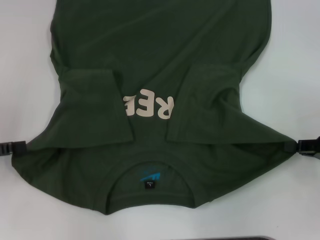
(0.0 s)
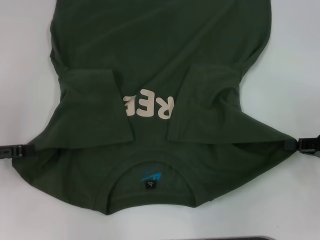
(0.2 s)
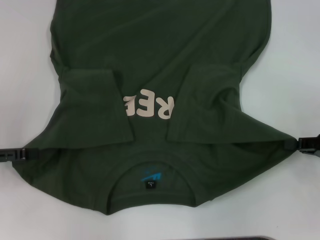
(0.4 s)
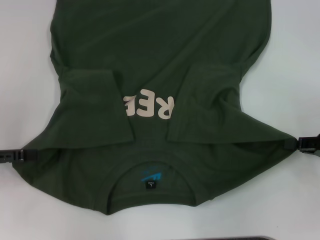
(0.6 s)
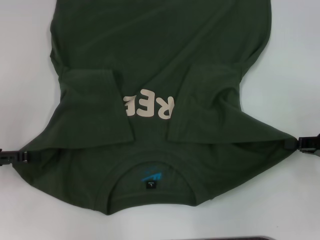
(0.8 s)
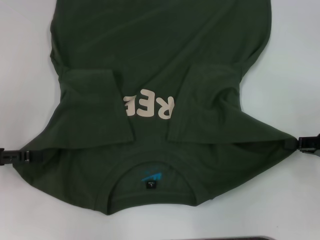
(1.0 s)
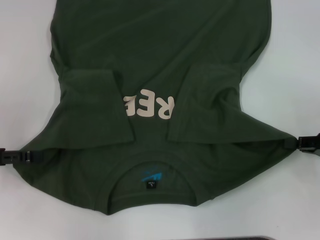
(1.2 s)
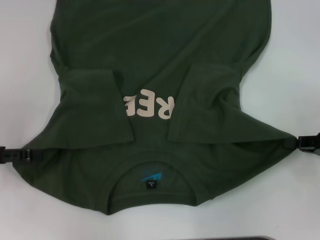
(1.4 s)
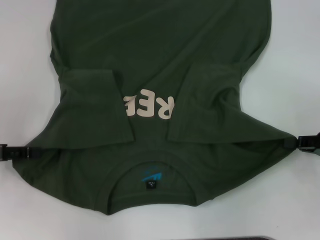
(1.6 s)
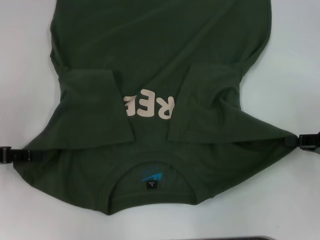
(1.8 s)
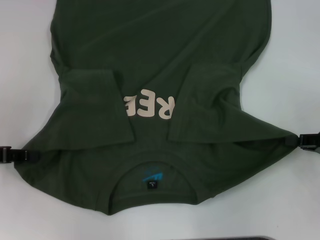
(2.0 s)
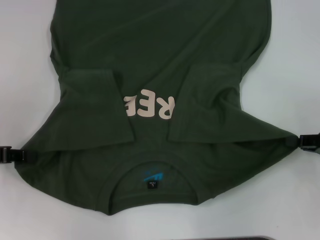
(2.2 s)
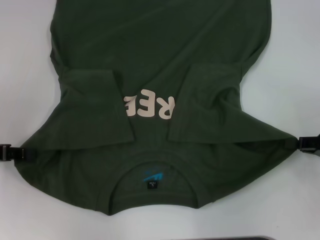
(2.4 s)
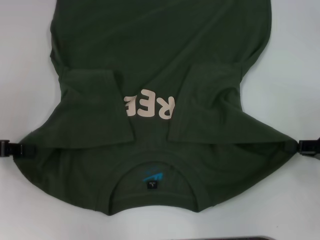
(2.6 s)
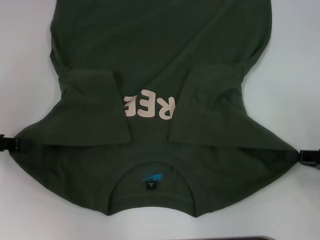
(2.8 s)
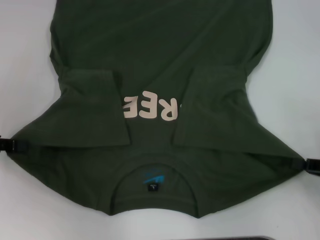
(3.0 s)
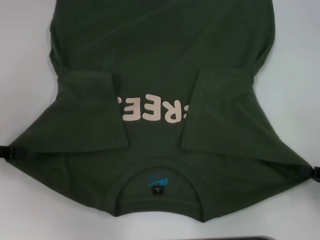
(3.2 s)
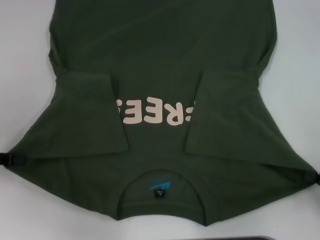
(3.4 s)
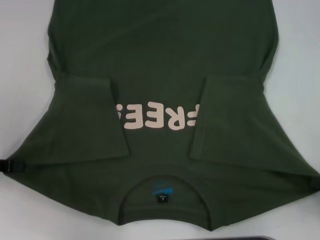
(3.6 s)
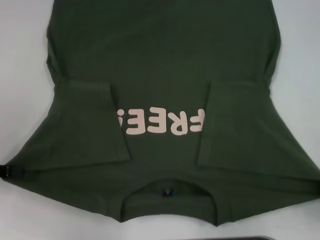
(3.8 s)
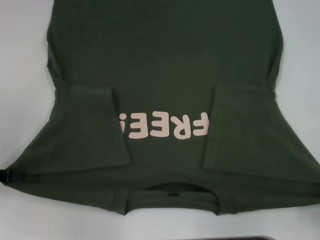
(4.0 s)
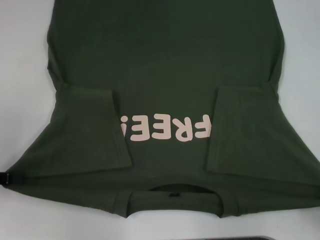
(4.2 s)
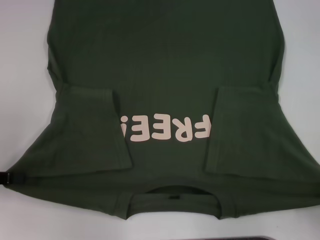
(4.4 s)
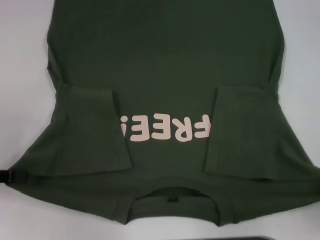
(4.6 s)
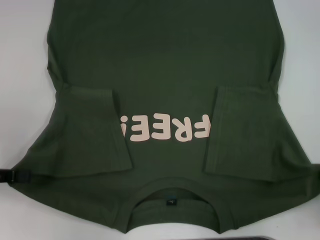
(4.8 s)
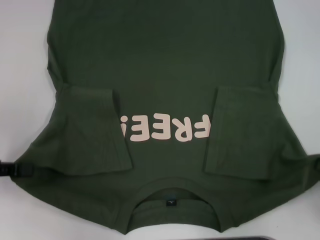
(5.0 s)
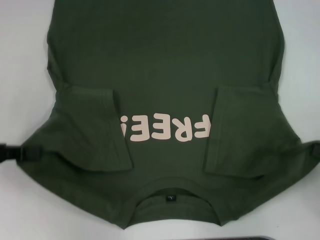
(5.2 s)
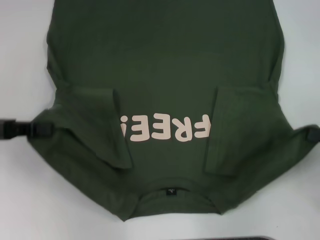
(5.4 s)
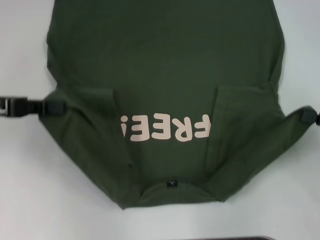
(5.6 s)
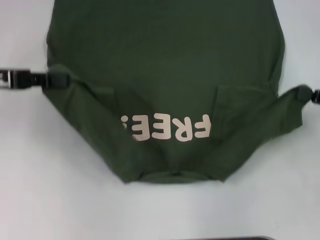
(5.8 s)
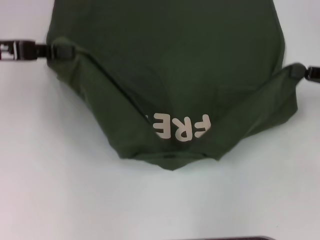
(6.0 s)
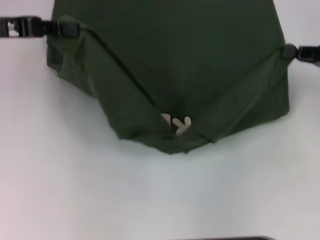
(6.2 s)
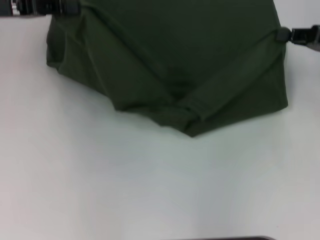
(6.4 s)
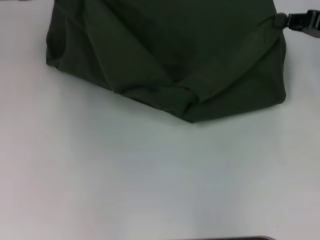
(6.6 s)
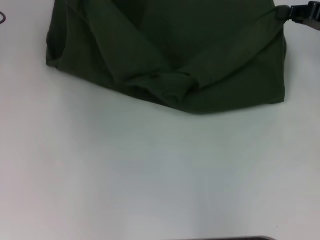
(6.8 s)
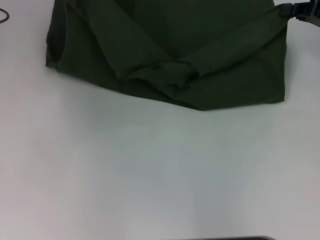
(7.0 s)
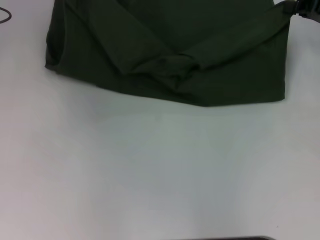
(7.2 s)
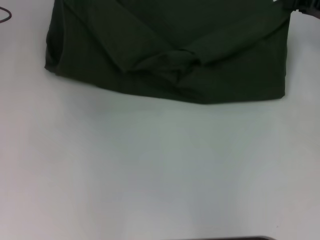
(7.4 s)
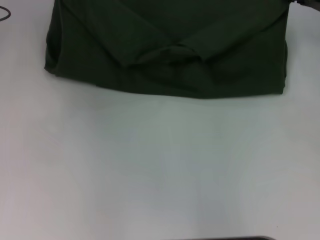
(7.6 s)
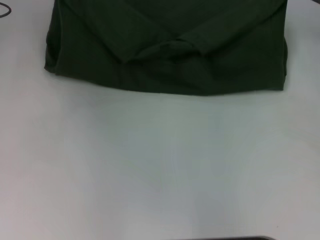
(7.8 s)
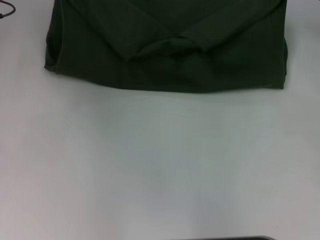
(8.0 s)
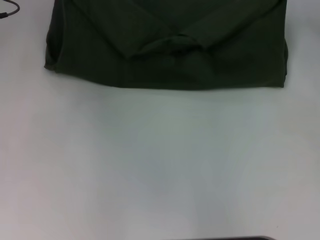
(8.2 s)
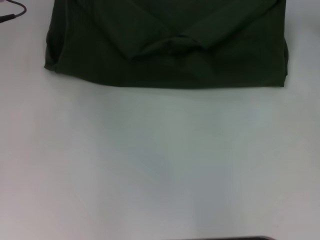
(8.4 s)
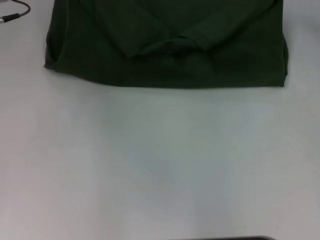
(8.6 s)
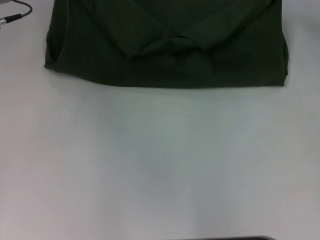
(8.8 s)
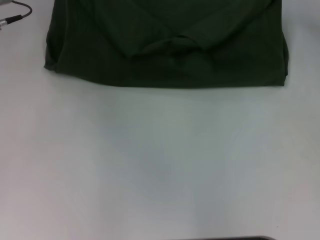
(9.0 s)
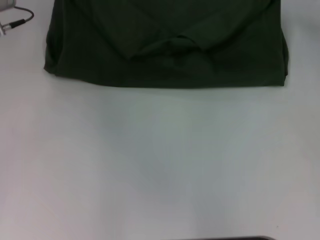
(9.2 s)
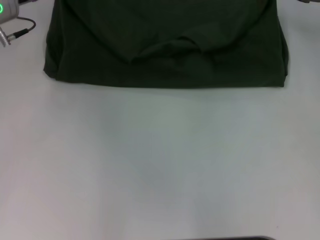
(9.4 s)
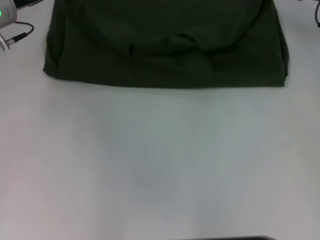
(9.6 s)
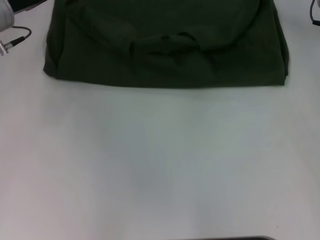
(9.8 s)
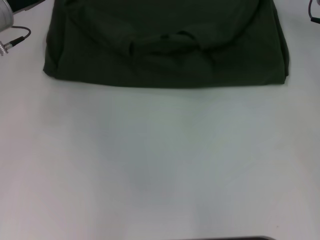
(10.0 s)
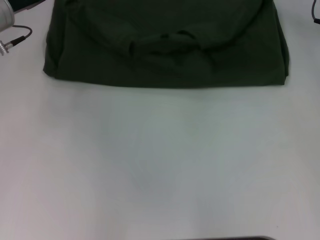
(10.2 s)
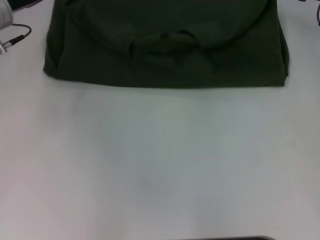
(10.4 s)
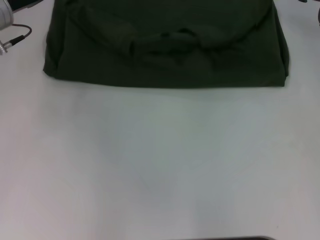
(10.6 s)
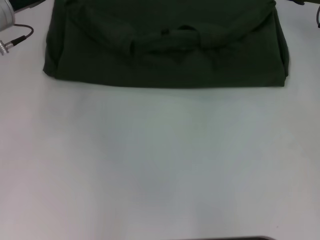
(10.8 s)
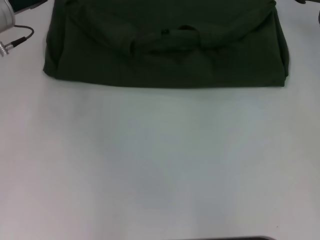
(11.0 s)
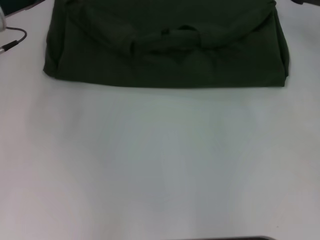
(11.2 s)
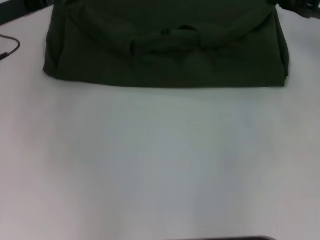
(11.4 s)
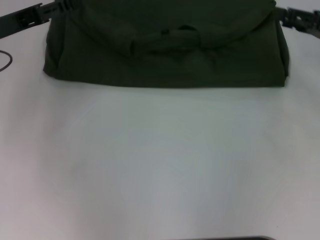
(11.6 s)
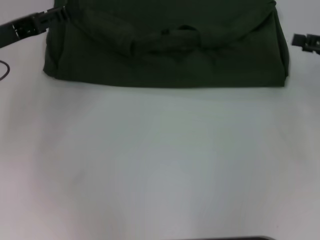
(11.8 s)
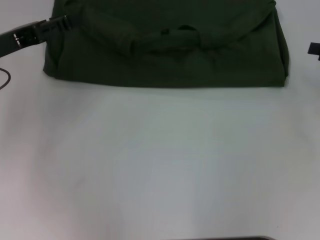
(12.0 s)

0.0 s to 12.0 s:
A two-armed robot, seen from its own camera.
Step, 0.0 to 2.2 s: Grab the bottom left corner with your left hand.
Step, 2.4 to 10.6 s: Fold the clothes with your left hand.
Step, 2.4 to 10.6 s: Fold the clothes with your right hand.
0.0 to 1.6 s: The grippers make only small movements.
1.6 to 3.0 s: The right gripper moves backward, about 5 cm; the left gripper closes its fingers.
3.0 to 4.4 s: The right gripper travels backward by some 10 cm.
4.4 to 6.0 s: The right gripper heads forward and upward, covering some 20 cm, while the left gripper heads forward, upward and to the right, covering some 15 cm.
6.0 to 7.6 s: Both grippers move forward, approximately 10 cm.
7.6 to 9.0 s: The grippers make only small movements.
9.0 to 10.4 s: The left gripper opens up.
10.4 to 12.0 s: The left gripper is displaced backward by some 10 cm. Meanwhile the right gripper moves backward and to the right, about 15 cm.

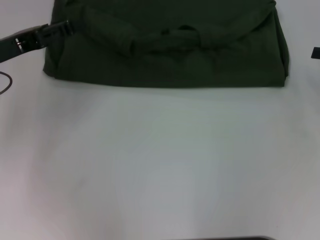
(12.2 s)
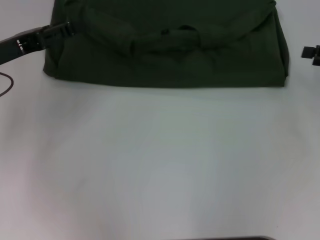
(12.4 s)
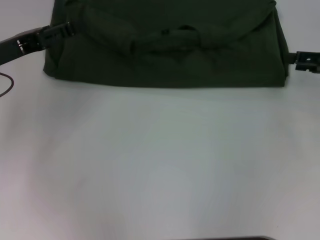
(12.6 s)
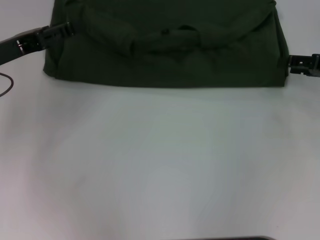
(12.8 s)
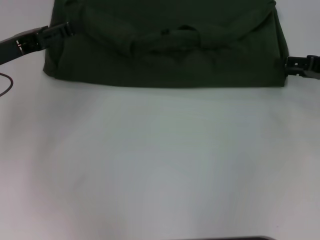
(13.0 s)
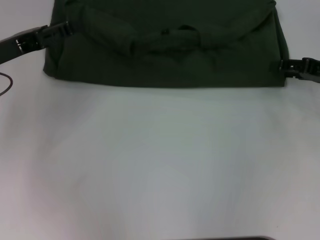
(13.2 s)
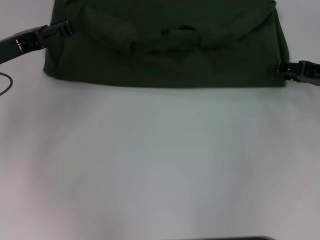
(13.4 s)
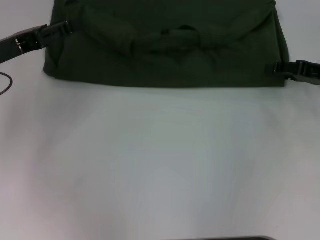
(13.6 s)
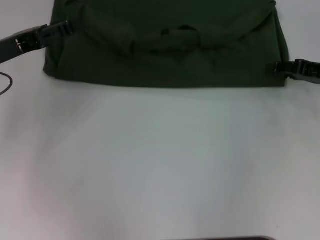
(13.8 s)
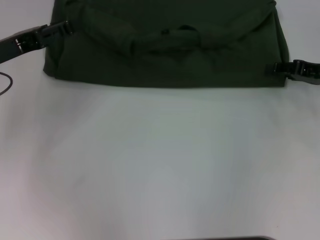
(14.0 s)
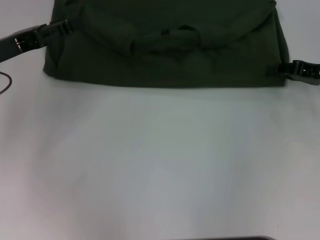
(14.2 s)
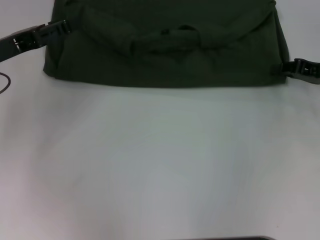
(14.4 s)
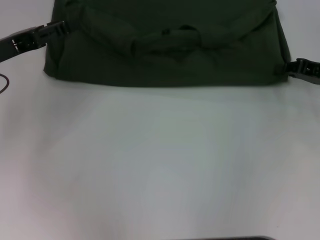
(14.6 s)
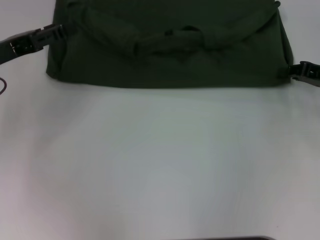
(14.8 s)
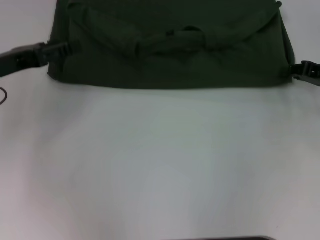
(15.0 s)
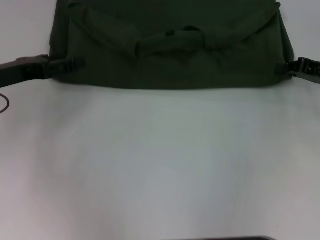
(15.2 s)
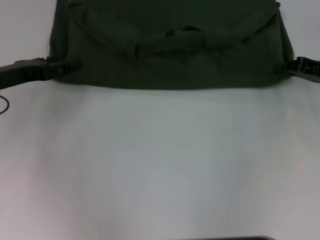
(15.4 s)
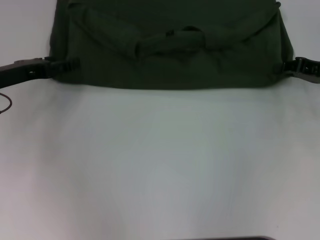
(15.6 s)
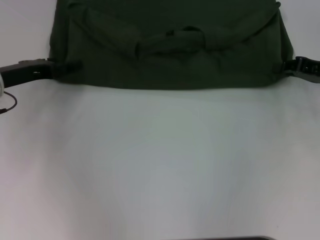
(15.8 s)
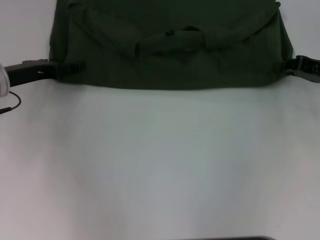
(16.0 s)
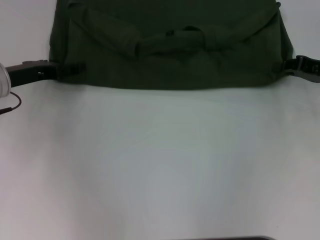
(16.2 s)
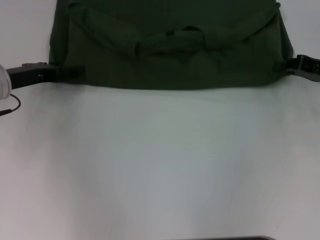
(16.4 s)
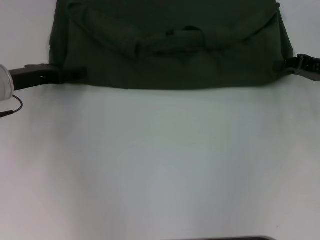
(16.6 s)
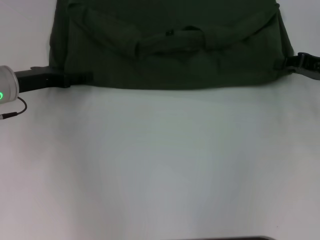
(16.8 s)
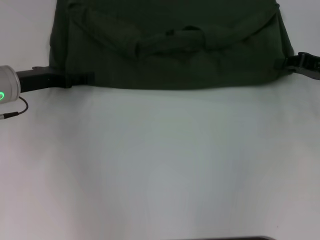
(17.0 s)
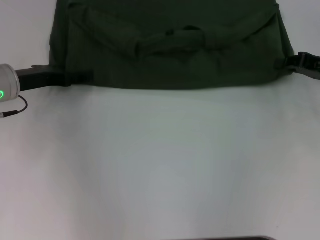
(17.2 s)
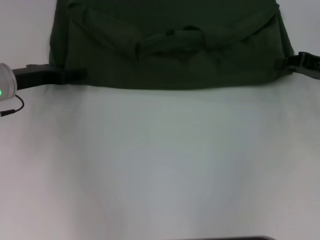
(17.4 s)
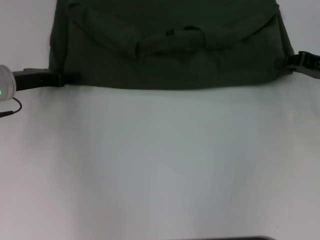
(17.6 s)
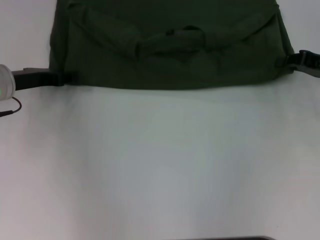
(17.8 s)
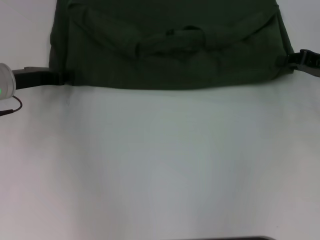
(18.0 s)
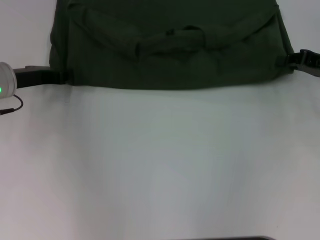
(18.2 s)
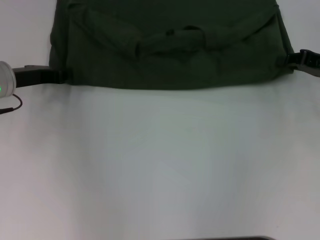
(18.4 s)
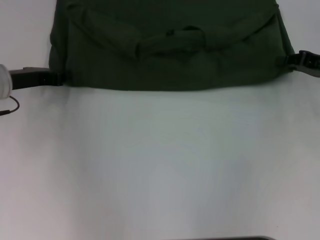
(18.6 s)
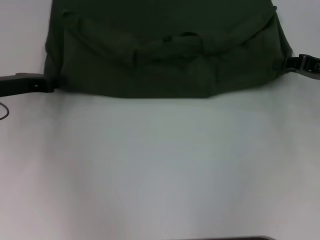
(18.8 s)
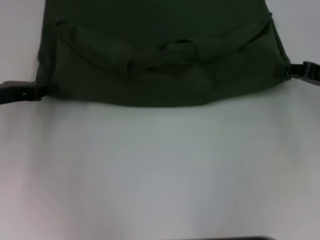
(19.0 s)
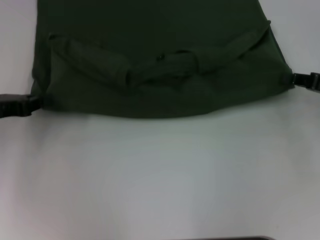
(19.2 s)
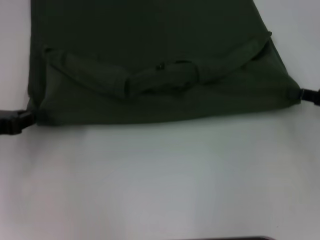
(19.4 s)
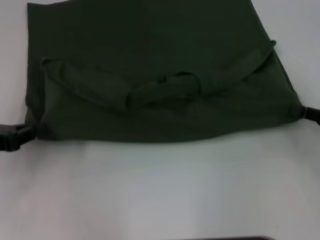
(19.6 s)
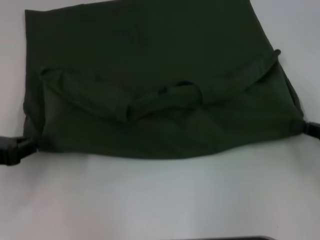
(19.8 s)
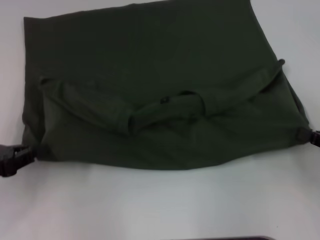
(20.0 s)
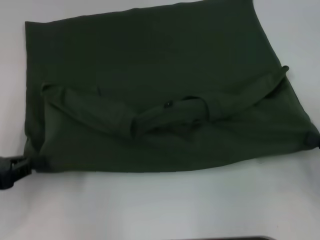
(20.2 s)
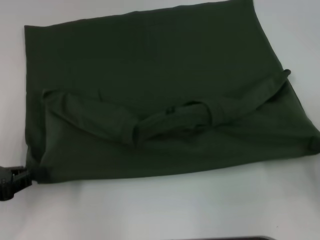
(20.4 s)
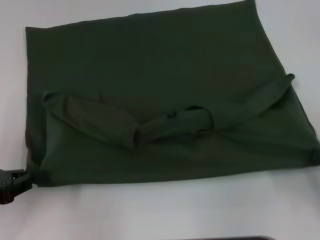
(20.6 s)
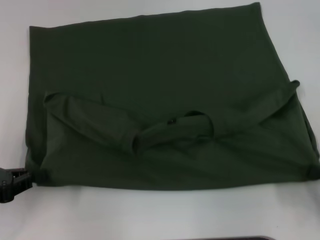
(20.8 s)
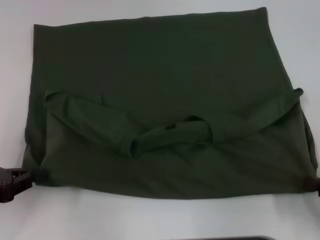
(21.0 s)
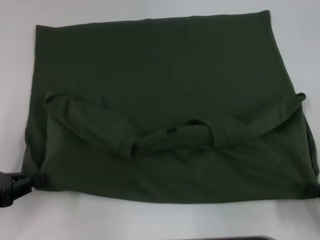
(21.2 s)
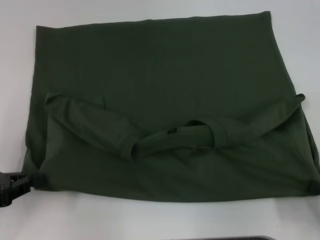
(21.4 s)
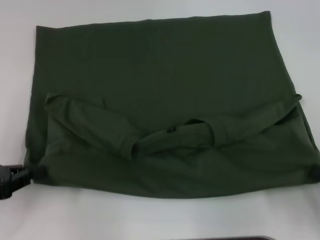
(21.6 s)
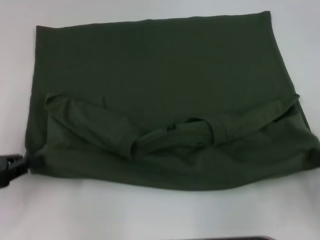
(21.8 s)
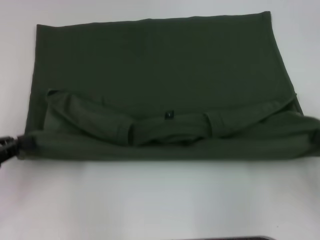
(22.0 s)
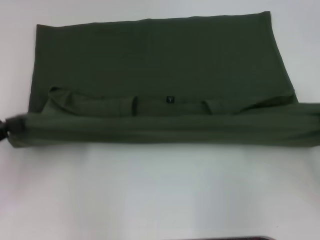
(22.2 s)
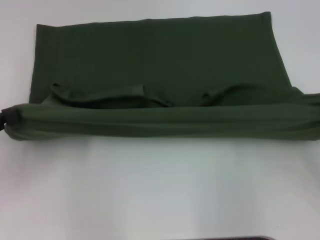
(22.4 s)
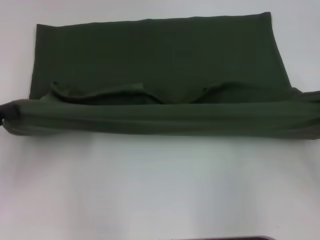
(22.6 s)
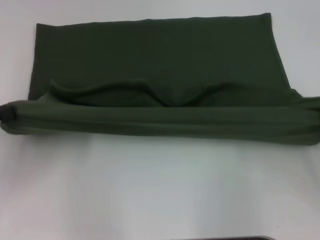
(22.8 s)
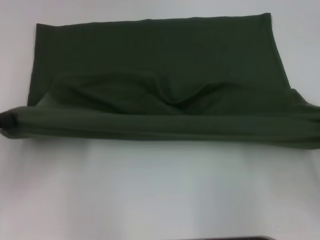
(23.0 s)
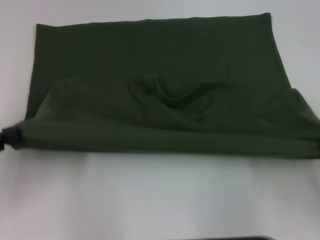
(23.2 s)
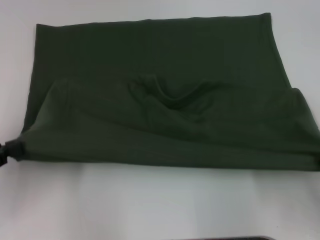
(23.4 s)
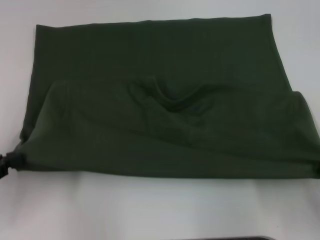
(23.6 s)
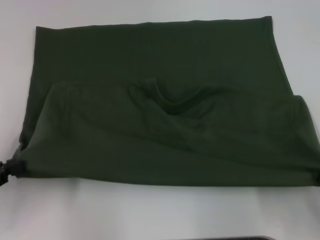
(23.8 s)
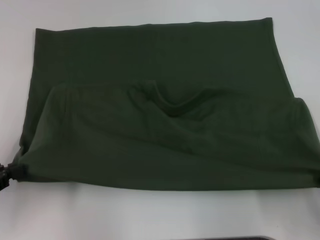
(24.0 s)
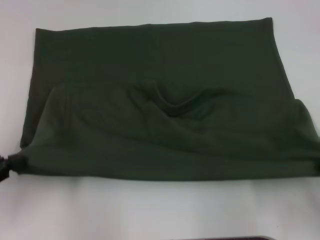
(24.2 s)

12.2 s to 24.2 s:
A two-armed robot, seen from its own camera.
Step, 12.2 to 21.2 s: Pull the clothes with your left hand.
Step, 12.2 to 21.2 s: Pull the clothes with your right hand.
12.2 to 13.8 s: The right gripper goes approximately 5 cm to the left.
13.8 to 15.2 s: The right gripper closes up.
15.2 to 16.6 s: There are only small adjustments of the grippers.
16.6 to 18.2 s: The left gripper closes.
18.2 to 19.8 s: The left gripper heads backward and to the left, covering approximately 15 cm, while the right gripper moves backward, about 15 cm.
19.8 to 21.2 s: The right gripper travels backward by some 10 cm.
21.2 to 22.6 s: The right gripper moves forward and upward, approximately 10 cm; the left gripper shifts by approximately 5 cm.
22.6 to 24.2 s: The right gripper heads backward, covering about 5 cm.
